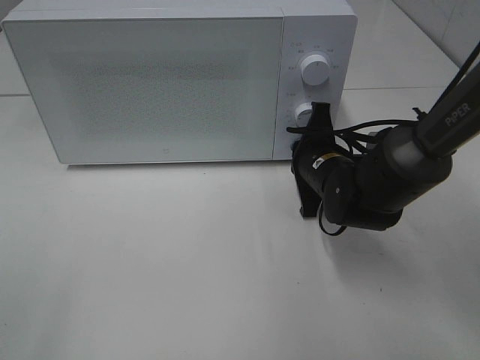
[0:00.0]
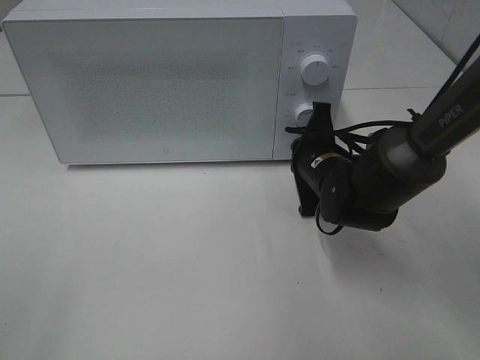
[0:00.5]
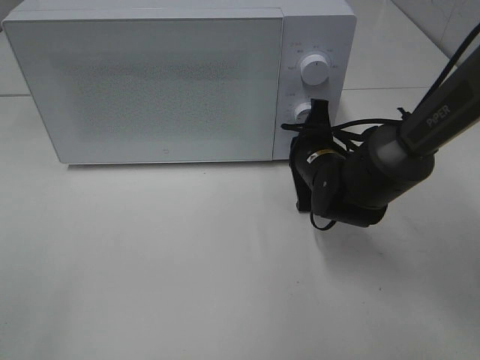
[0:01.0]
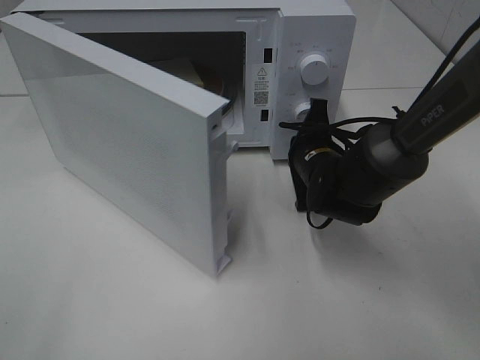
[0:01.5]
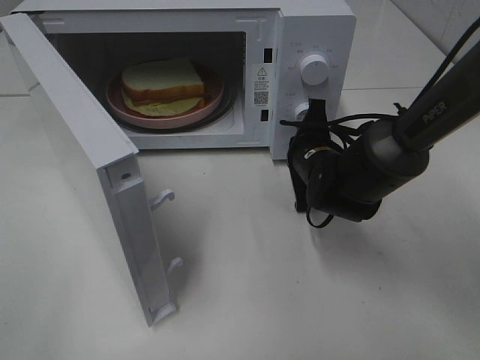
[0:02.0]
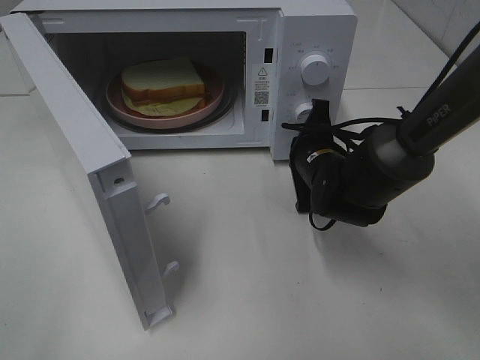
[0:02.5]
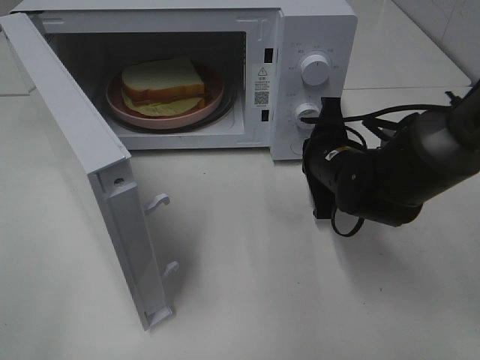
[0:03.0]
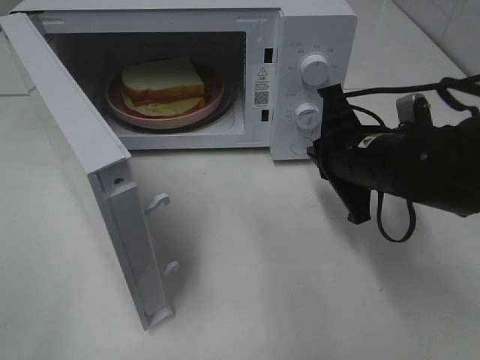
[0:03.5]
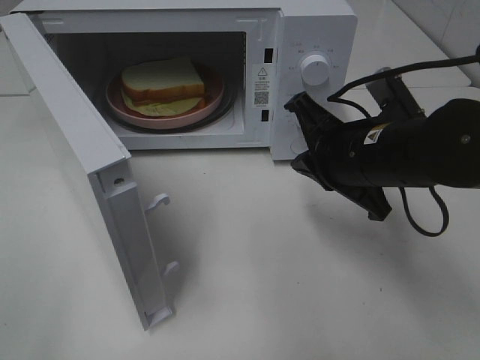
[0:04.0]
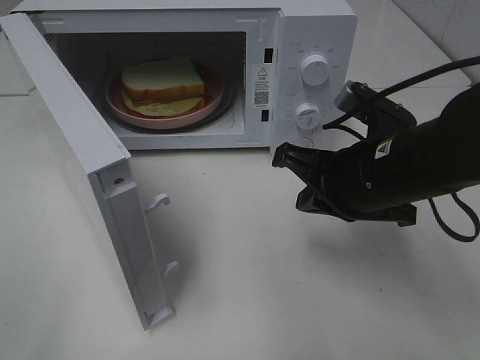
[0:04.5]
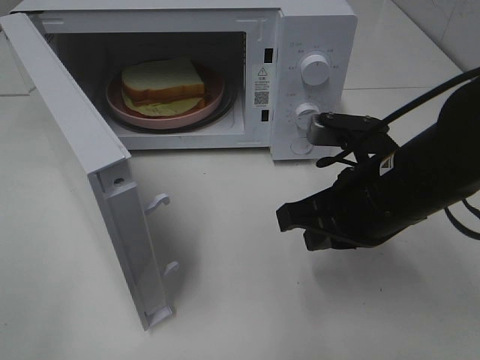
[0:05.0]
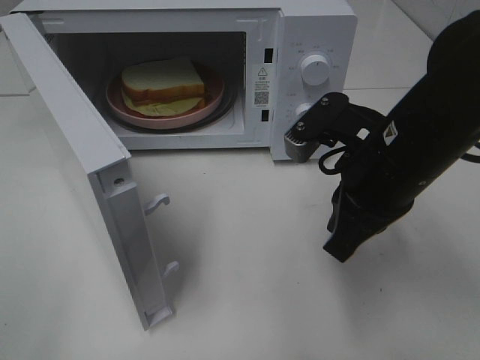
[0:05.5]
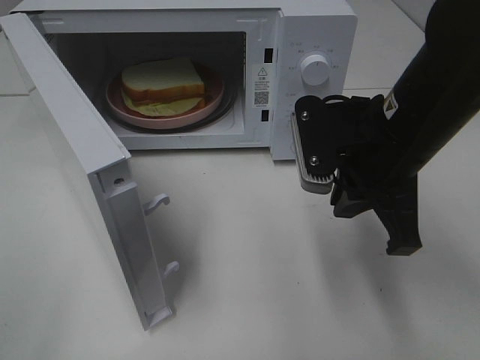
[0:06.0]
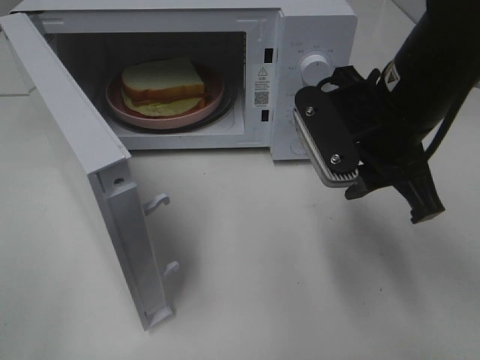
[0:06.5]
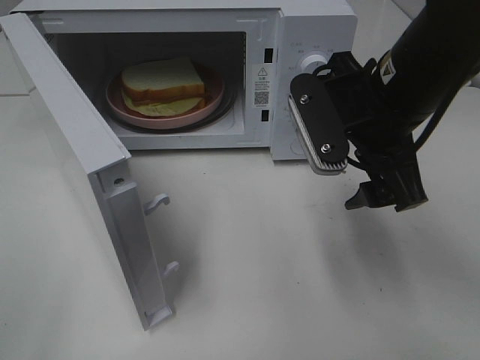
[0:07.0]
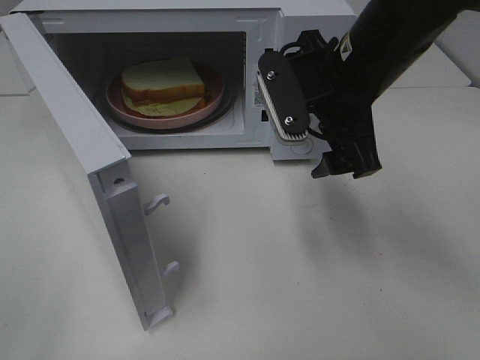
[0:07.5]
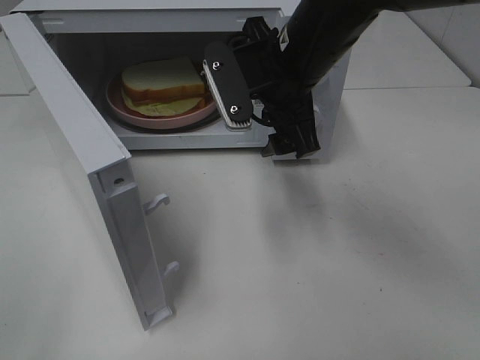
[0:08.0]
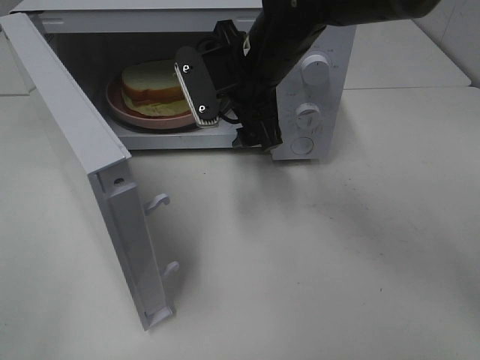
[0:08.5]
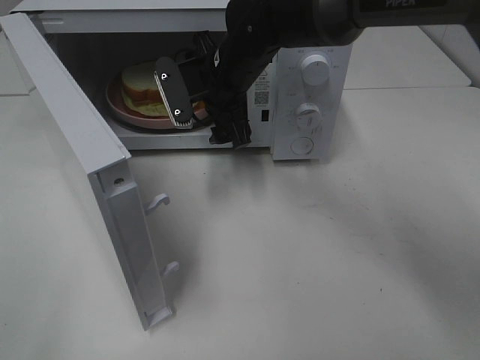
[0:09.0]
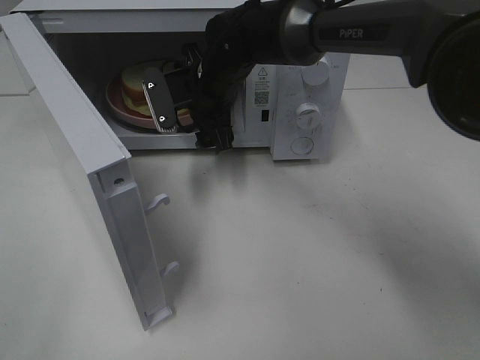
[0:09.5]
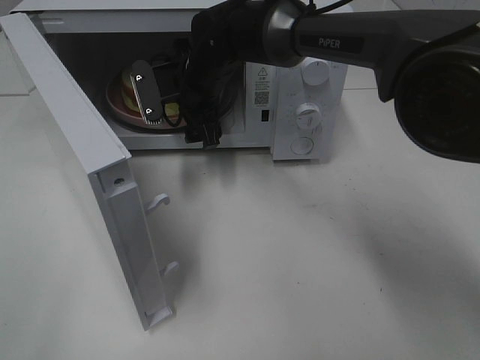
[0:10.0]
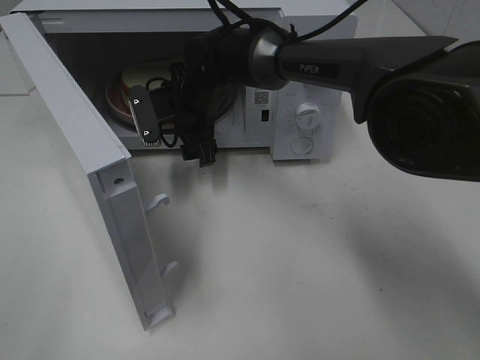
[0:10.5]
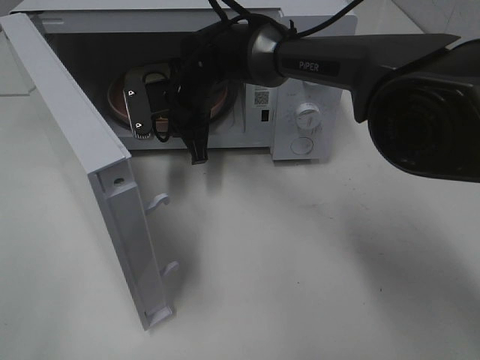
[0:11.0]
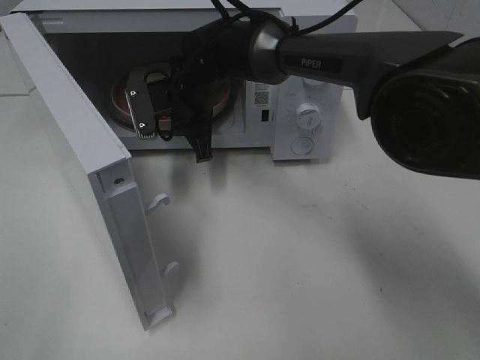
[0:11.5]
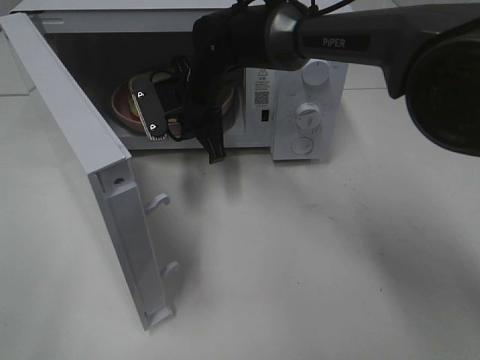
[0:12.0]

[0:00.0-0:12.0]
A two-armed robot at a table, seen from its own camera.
Task of the whole recording: Heat Sandwich.
Step, 0:00.0 to 0:02.5: Right hand: press the switch.
Step, 0:03.0 to 0:11.5: Right hand: grab the plate with the sandwich.
0:02.0 to 0:04.0: The right gripper is displaced backward and upward by approximately 15 cm.
0:06.0 to 0:08.0: The right gripper shifts some 10 cm forward and to the left, and opens its fingers.
0:08.0 to 0:10.0: The right gripper shifts some 15 cm forward, to the left and downward.
0:10.0 to 0:12.0: The right gripper closes its fingers.

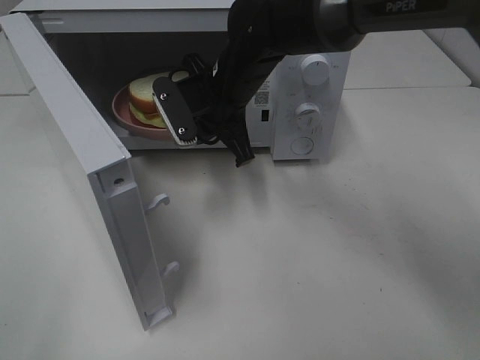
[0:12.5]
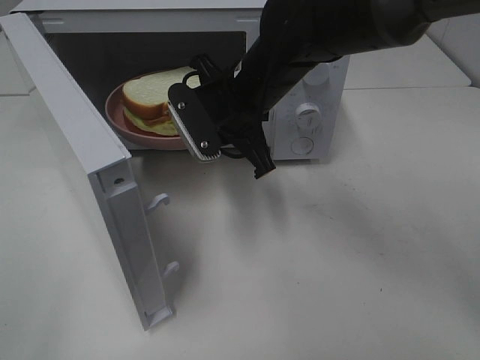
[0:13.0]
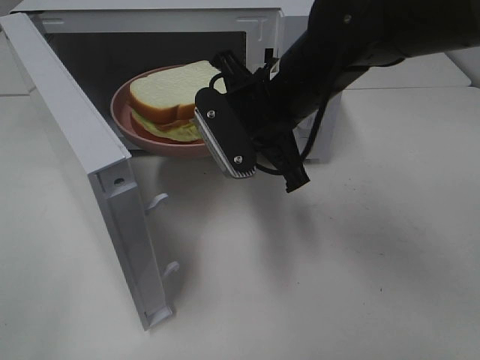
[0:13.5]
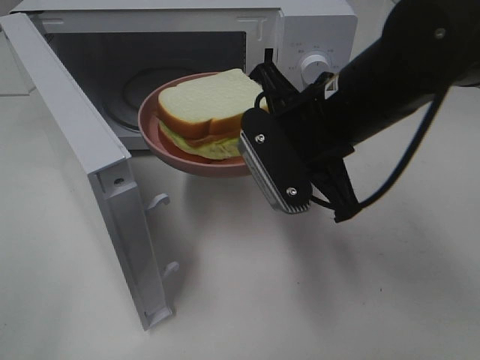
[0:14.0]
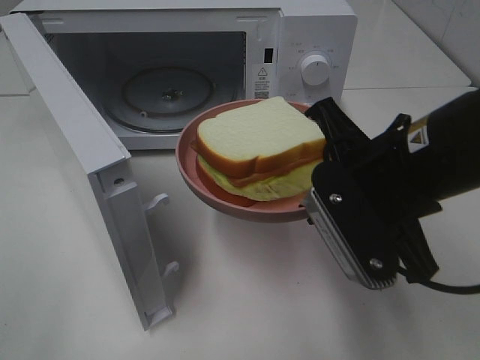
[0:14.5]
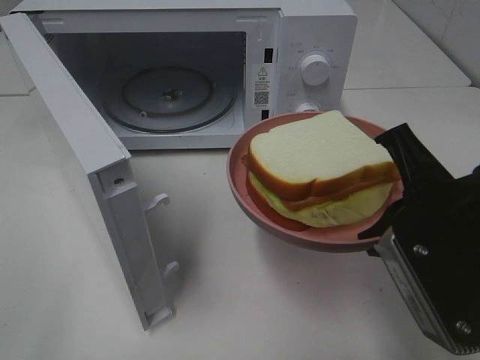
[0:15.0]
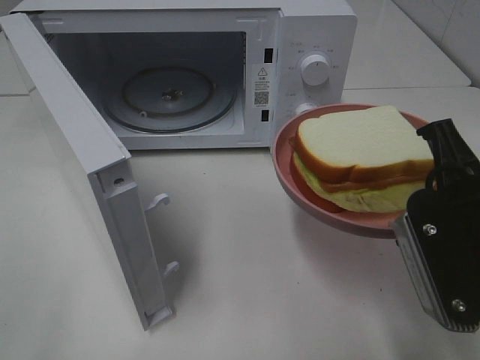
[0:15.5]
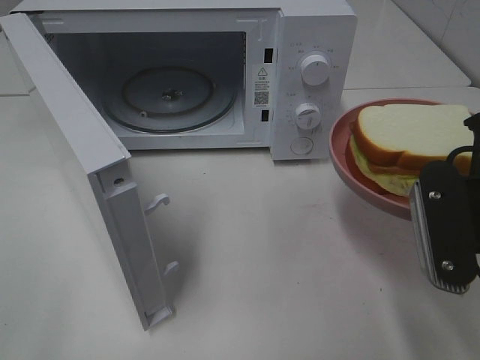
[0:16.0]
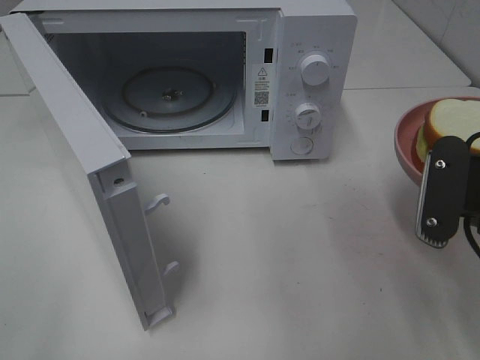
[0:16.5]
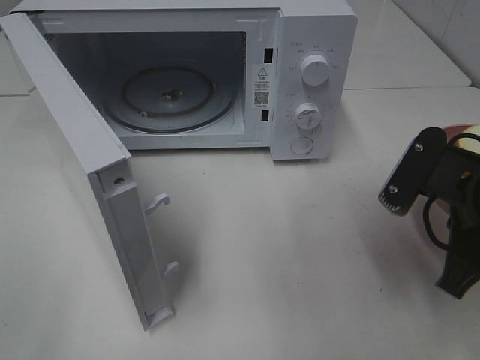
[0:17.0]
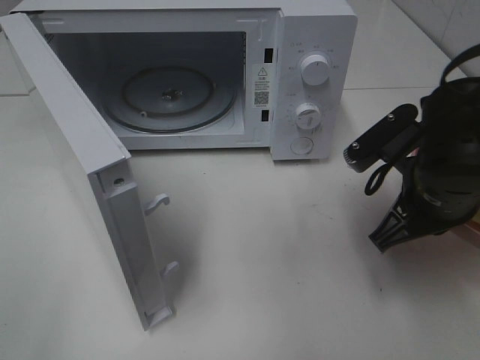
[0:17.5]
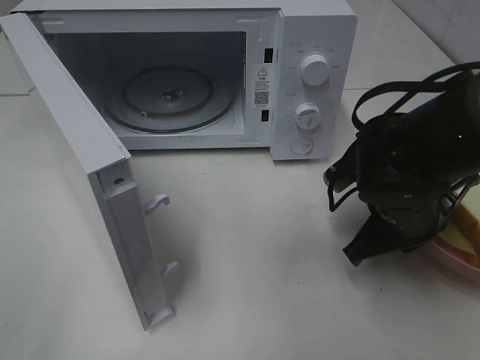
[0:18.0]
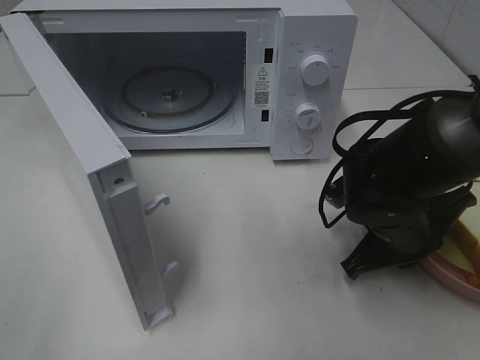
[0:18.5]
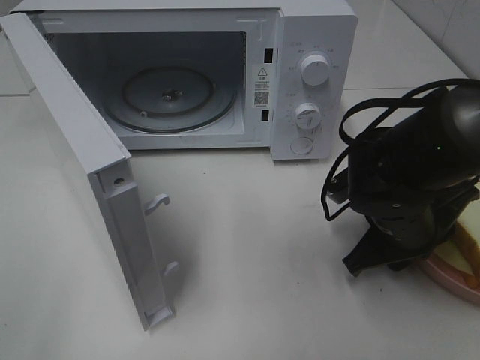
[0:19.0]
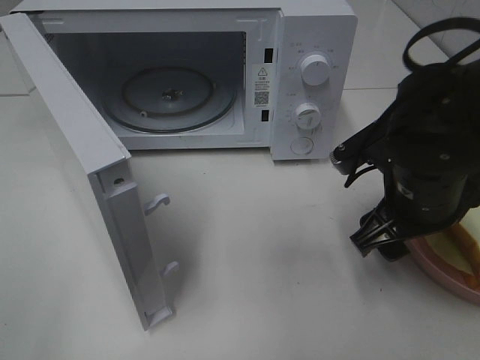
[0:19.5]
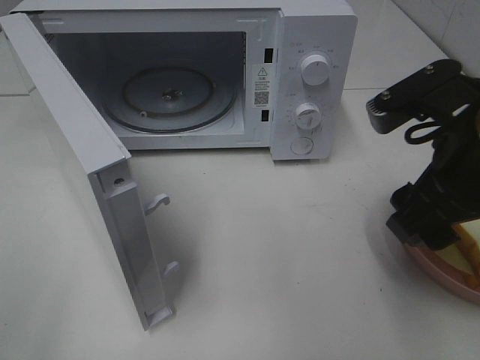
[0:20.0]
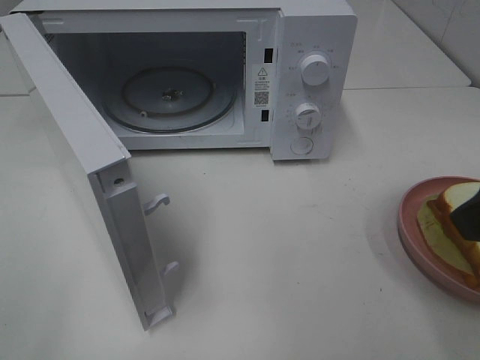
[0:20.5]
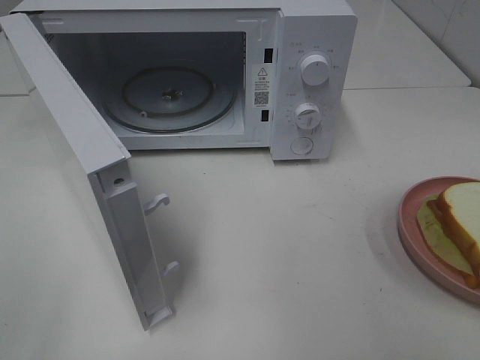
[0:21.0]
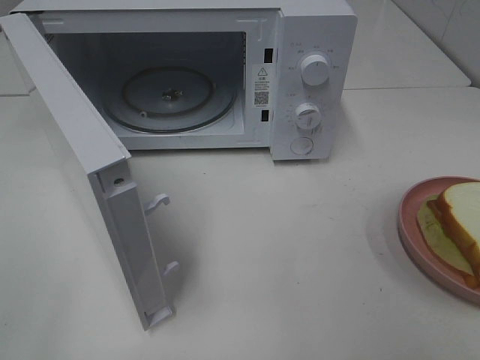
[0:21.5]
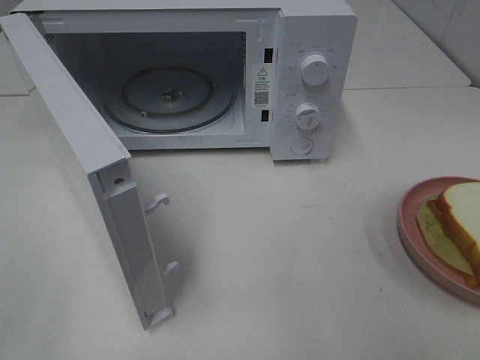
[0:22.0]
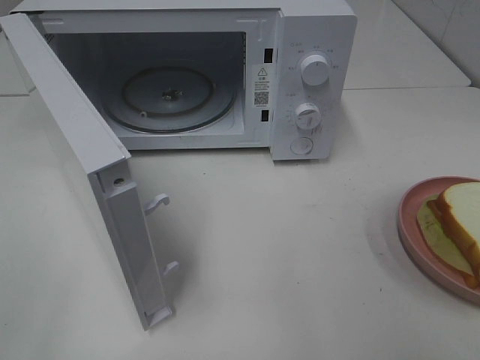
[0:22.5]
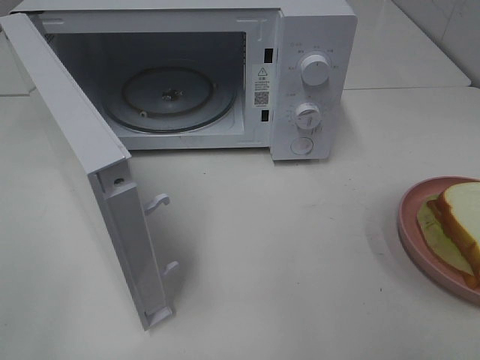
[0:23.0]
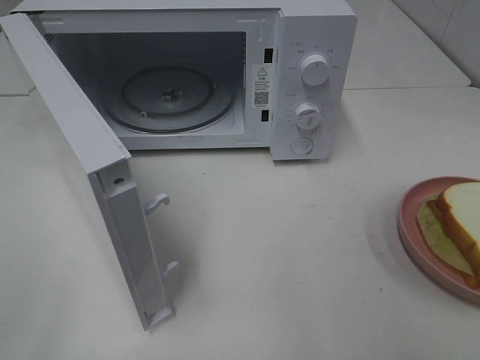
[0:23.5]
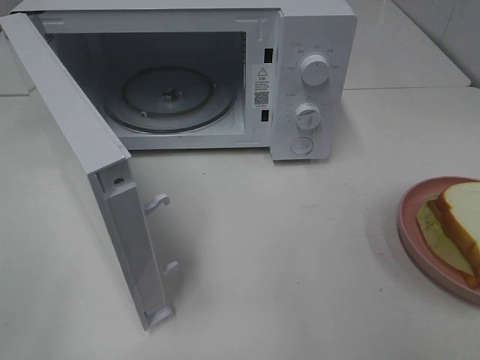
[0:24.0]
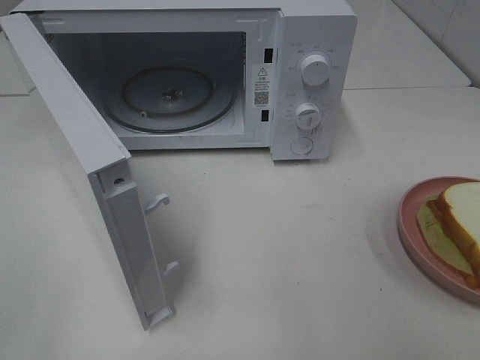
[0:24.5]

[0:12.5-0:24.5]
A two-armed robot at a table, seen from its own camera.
Task of the whole recording: Heat Sandwich.
Step, 0:12.5 to 0:19.5: Right hand: place the plate on the table.
0:12.5 to 0:14.5: The right gripper travels backward and to the right by roughly 25 cm.
0:14.5 to 0:16.5: The right gripper moves to the right, approximately 10 cm.
0:16.5 to 0:18.5: The right gripper is displaced downward, forward and to the left by roughly 15 cm.
0:18.5 to 0:20.5: The right gripper travels upward and backward by about 25 cm, and opens its fingers.
0:20.5 to 0:22.5: The right gripper is displaced backward and to the right by about 15 cm.
0:22.5 to 0:24.5: The two grippers keep their place.

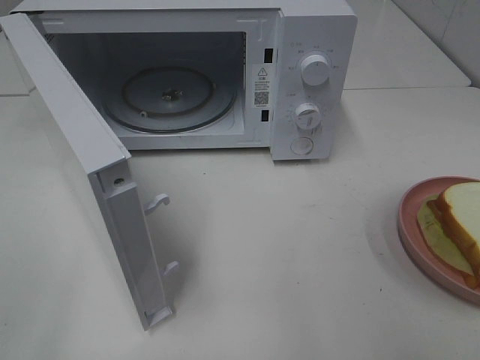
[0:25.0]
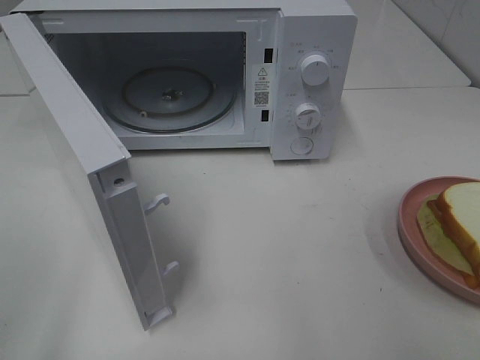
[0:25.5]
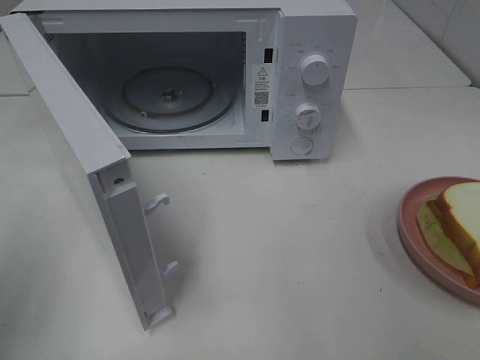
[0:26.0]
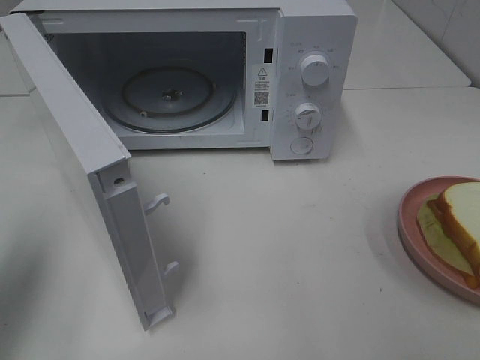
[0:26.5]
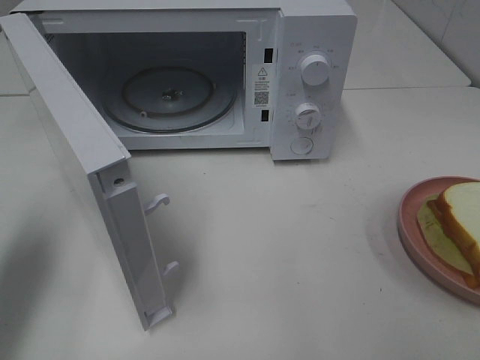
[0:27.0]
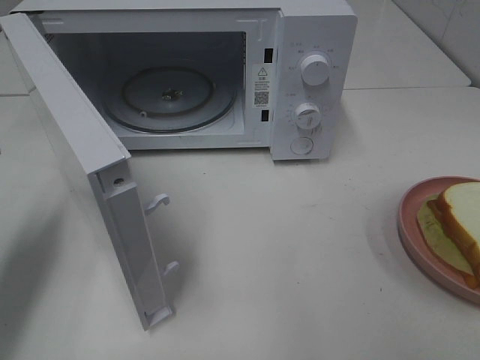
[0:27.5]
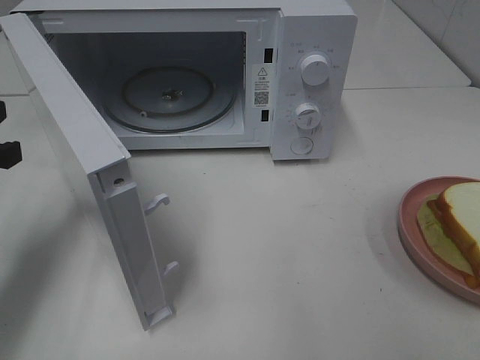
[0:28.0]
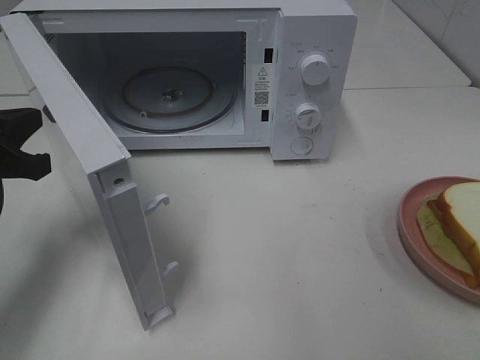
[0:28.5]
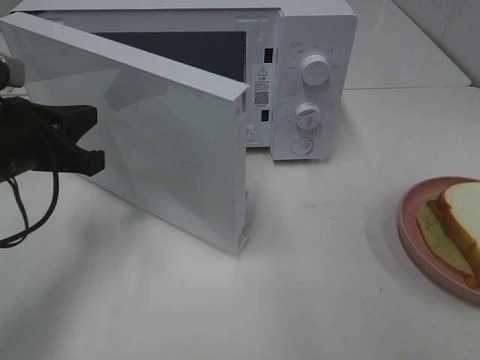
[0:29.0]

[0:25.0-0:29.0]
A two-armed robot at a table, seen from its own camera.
Task of the whole recording: Heat Sandwich.
0:25.0 to 0:27.0: The left gripper travels forward by about 20 cm, and closes.
0:27.0 to 0:29.0: The left gripper heads to the right and downward, covering roughly 10 cm.
